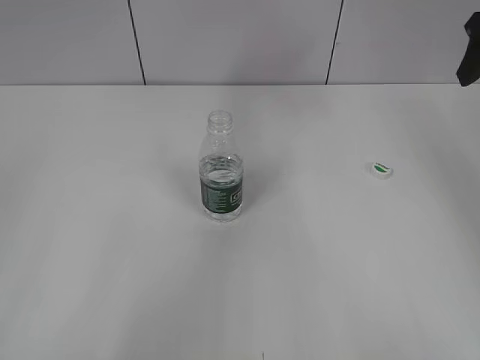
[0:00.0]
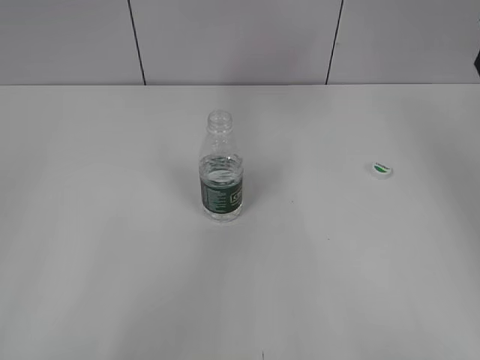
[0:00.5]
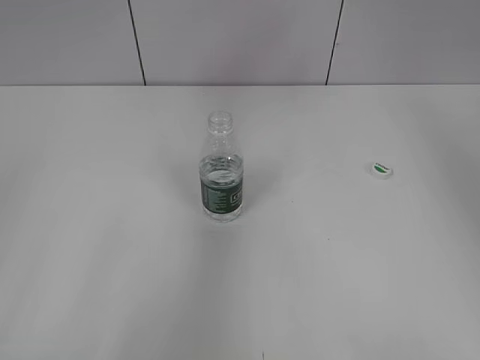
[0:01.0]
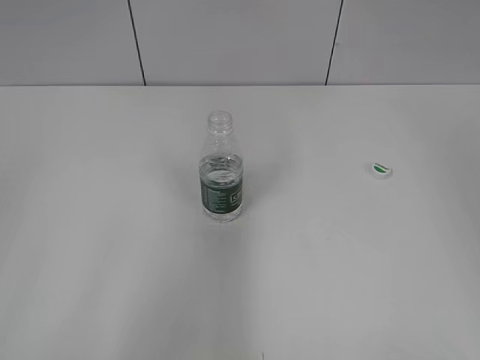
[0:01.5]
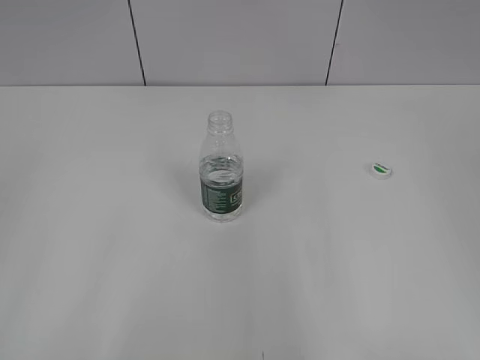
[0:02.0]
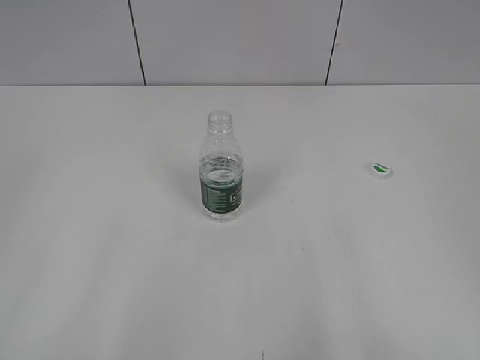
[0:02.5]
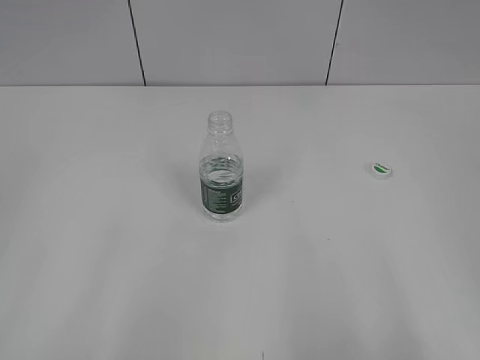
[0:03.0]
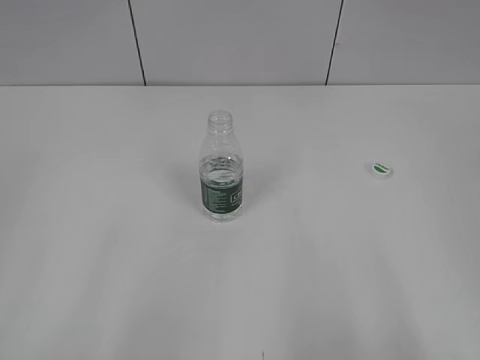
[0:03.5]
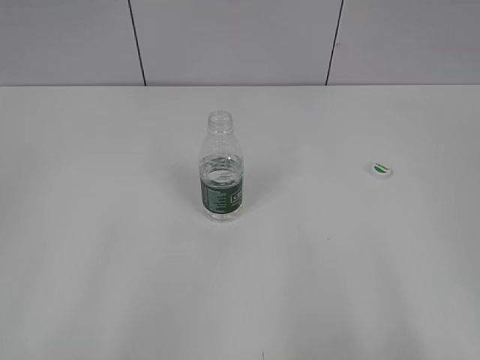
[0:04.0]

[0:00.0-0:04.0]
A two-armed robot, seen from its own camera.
0:00.0 to 0:02.0: The right gripper shifts some 35 cm backward.
